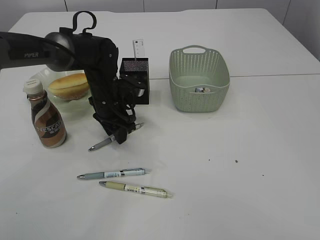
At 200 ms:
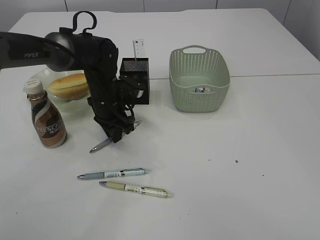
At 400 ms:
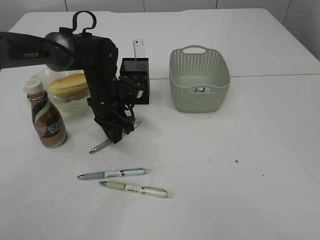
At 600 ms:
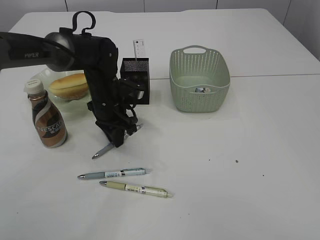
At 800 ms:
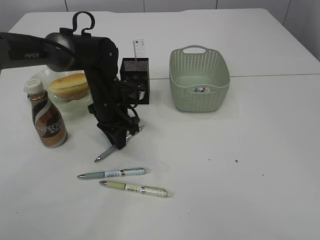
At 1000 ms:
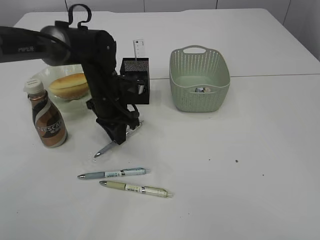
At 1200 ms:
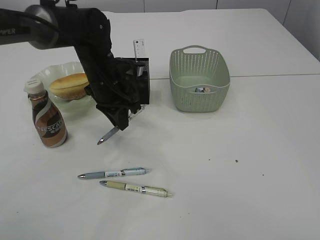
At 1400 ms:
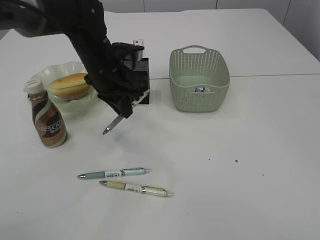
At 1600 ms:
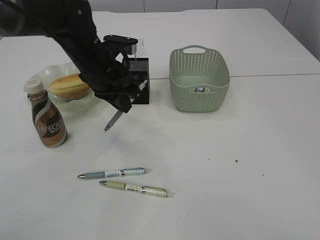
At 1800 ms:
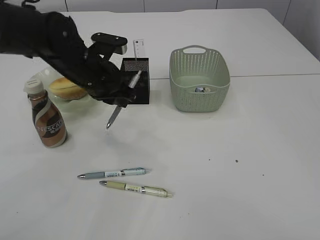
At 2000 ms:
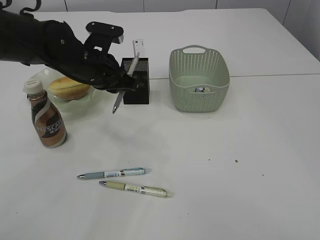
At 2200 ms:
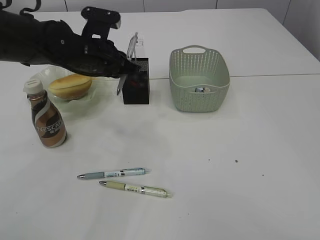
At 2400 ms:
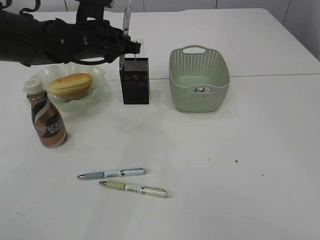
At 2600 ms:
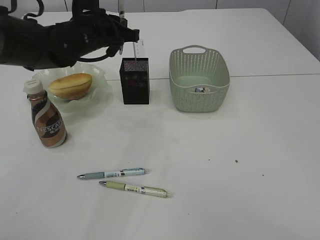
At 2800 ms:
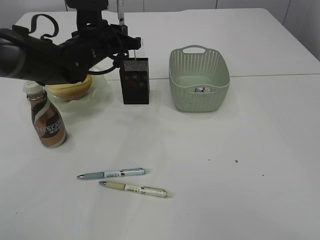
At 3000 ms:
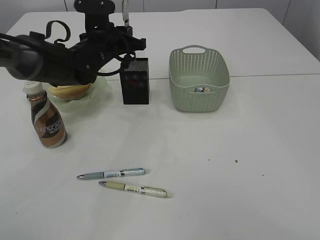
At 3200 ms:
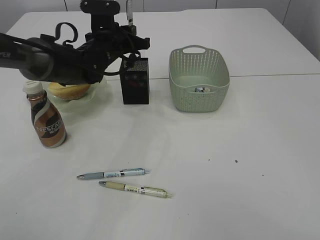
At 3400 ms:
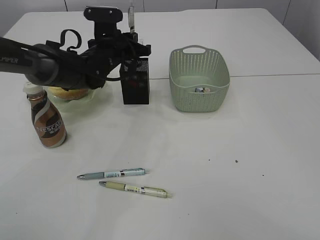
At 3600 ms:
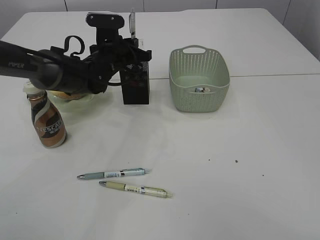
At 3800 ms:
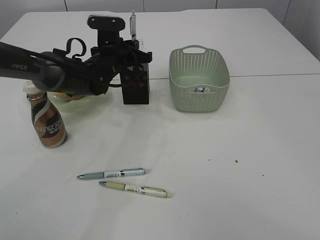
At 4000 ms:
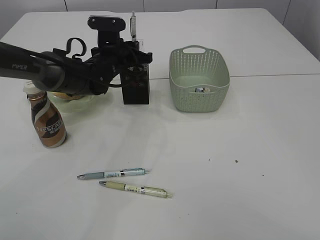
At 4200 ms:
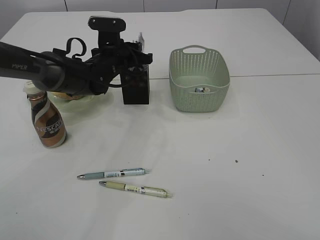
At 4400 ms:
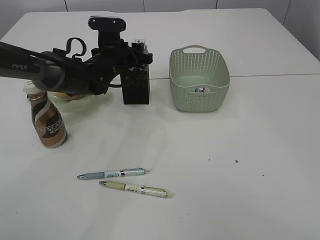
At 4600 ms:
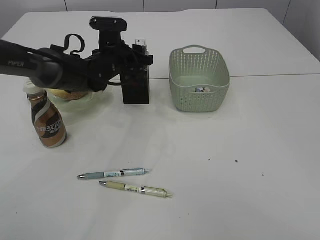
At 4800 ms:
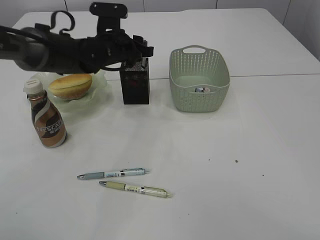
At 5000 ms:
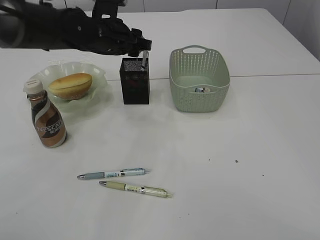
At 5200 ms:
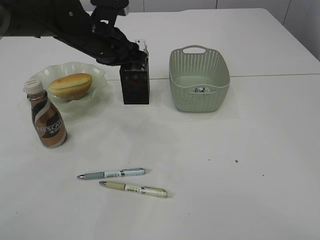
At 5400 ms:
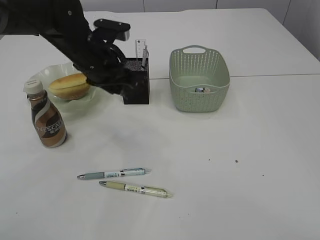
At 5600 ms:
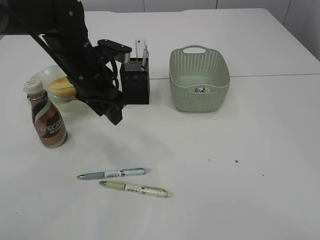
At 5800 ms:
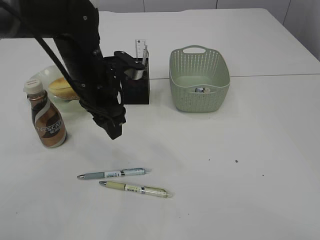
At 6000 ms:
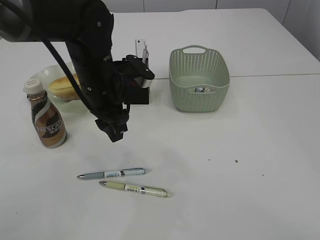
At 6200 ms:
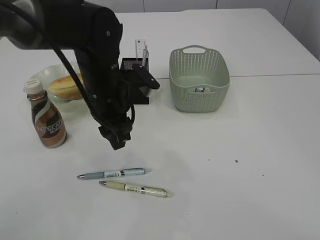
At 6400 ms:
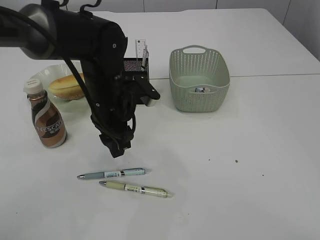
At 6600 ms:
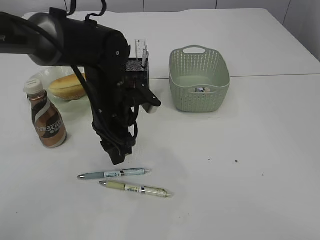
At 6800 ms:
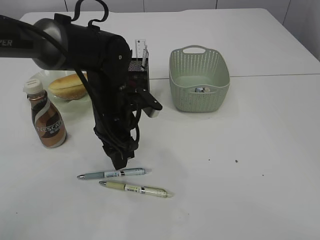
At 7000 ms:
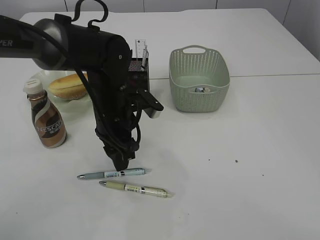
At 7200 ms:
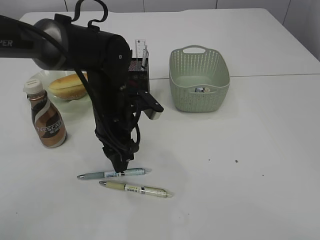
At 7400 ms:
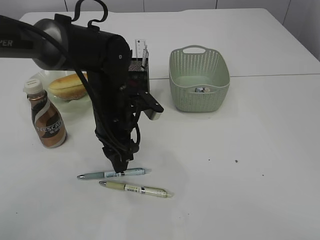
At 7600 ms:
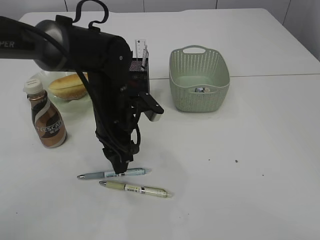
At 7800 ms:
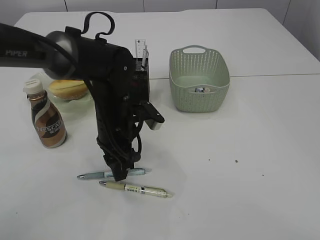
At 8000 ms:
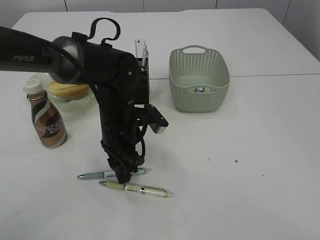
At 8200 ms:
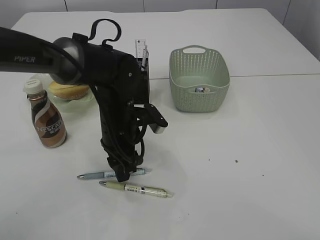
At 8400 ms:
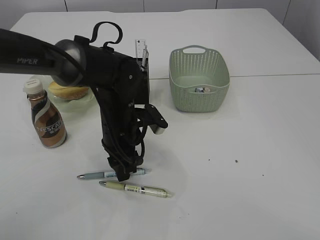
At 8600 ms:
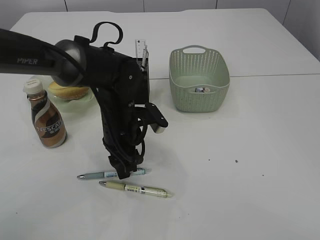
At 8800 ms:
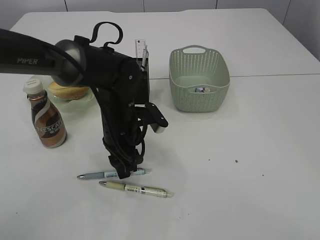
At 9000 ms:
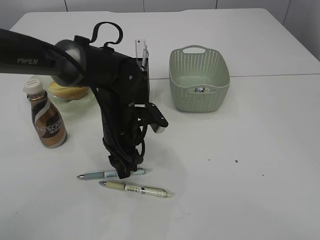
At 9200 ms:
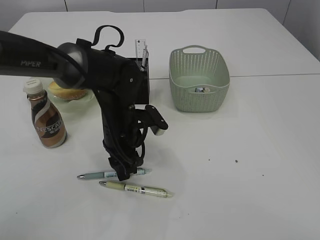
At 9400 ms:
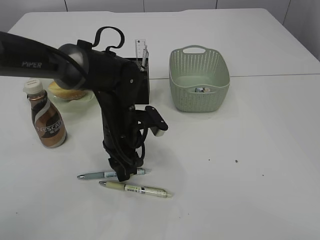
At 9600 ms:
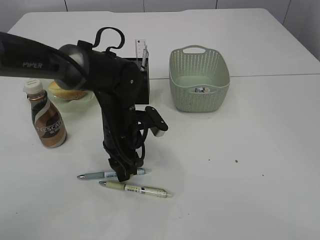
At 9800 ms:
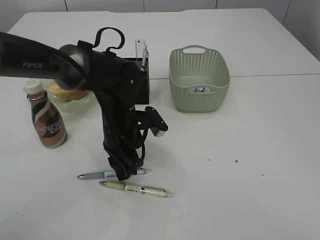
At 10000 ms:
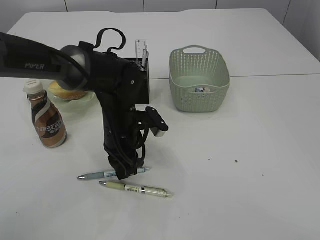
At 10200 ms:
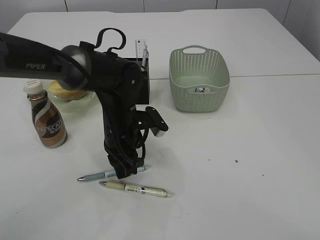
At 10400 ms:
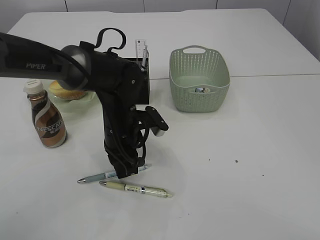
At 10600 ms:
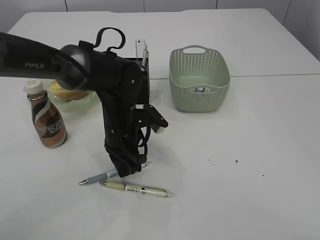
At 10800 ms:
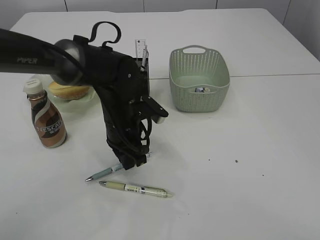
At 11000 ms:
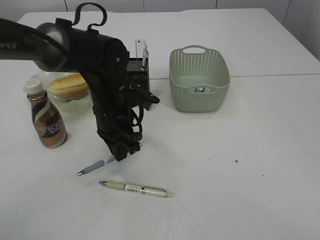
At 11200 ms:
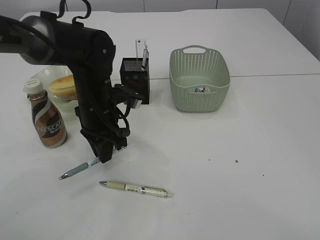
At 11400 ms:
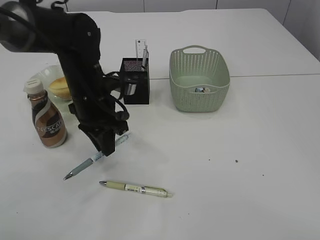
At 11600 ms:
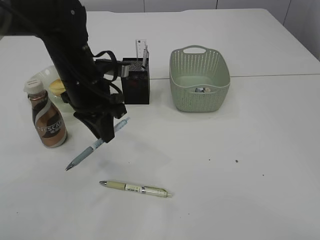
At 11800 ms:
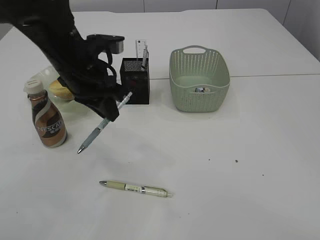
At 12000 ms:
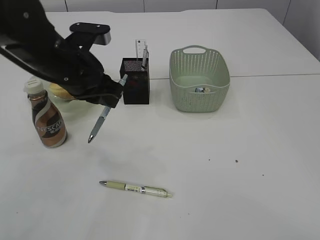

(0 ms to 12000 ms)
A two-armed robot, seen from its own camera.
Step, 1400 ms - 5000 ms: Place the pen into the pen holder.
Step, 5200 ms - 11200 ms: Pick up the pen with left arm.
0 ms - 1600 ms: The left gripper shifts roughly 10 cm upward, and closes up.
1600 ms - 3000 ms: The left gripper heads forward, covering roughly 5 cm.
3000 ms - 4400 ms: The left gripper opens.
4400 ms - 6000 ms: The left gripper goes roughly 15 cm backward.
6000 ms - 7600 ms: The left gripper is displaced downward by about 5 cm.
7600 ms - 9000 ms: The grippers stay close to where they were, moving slightly.
9000 ms - 10400 ms: The left gripper closes.
10400 ms - 12000 ms: The left gripper shifts approximately 15 cm upward and to the left.

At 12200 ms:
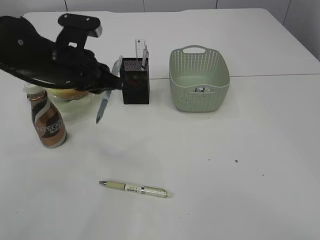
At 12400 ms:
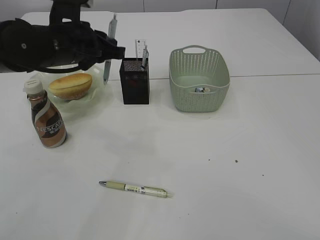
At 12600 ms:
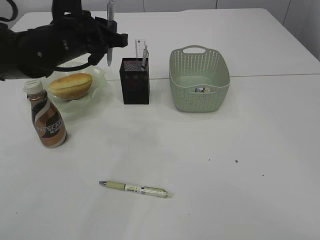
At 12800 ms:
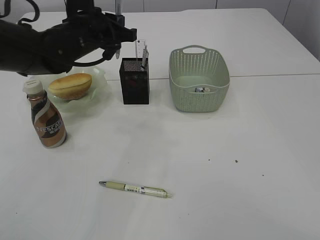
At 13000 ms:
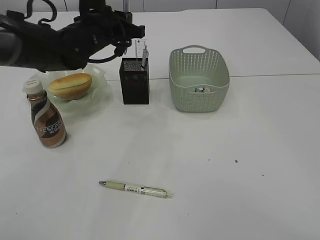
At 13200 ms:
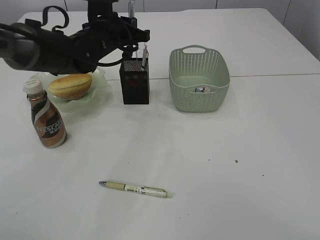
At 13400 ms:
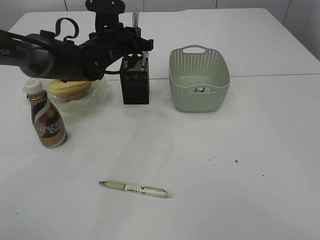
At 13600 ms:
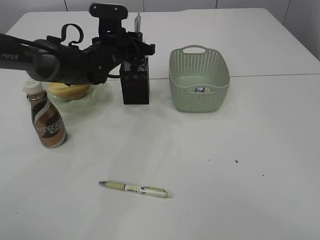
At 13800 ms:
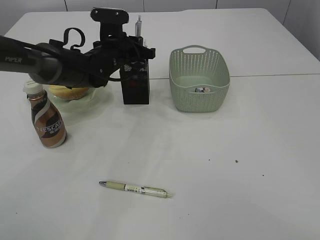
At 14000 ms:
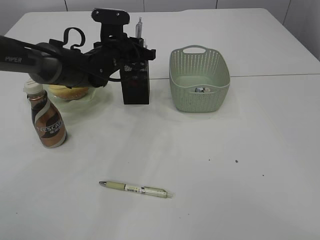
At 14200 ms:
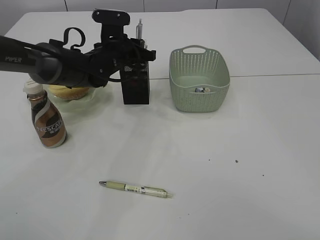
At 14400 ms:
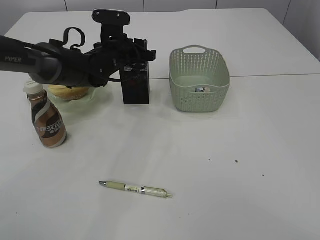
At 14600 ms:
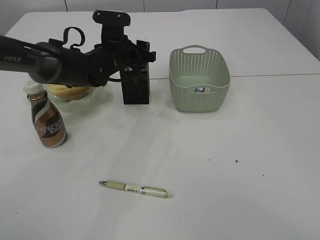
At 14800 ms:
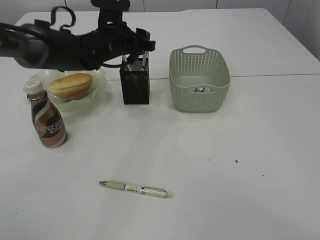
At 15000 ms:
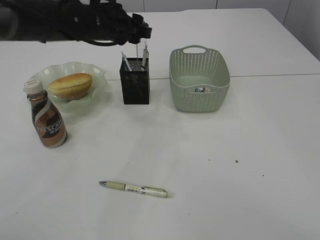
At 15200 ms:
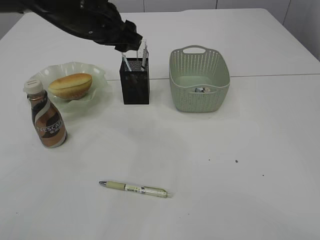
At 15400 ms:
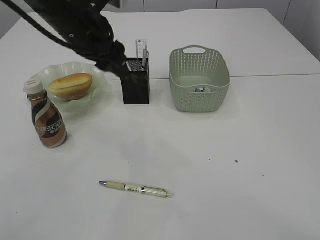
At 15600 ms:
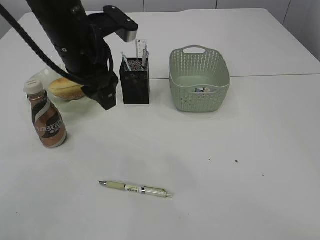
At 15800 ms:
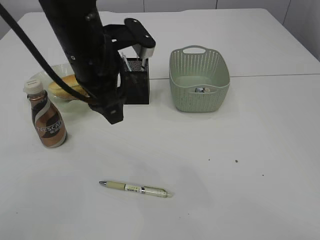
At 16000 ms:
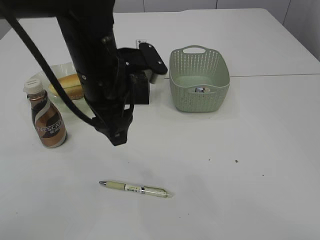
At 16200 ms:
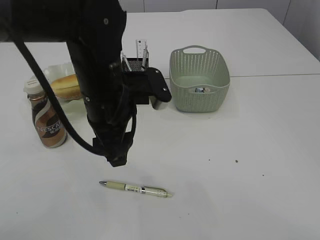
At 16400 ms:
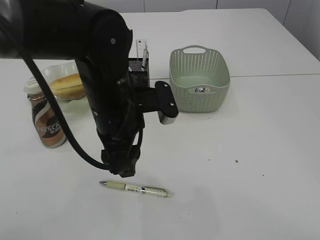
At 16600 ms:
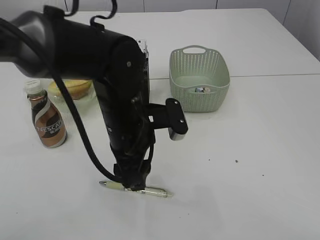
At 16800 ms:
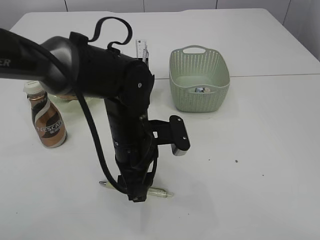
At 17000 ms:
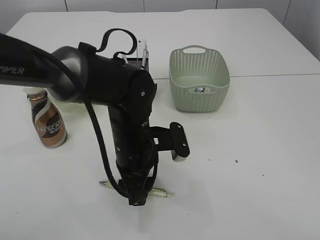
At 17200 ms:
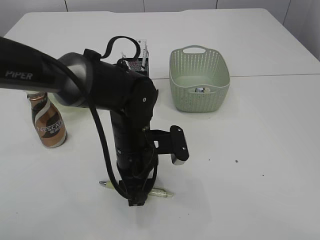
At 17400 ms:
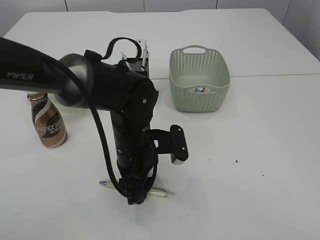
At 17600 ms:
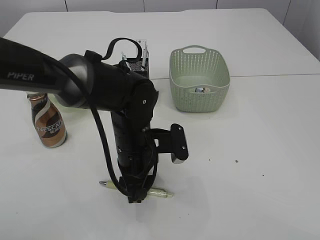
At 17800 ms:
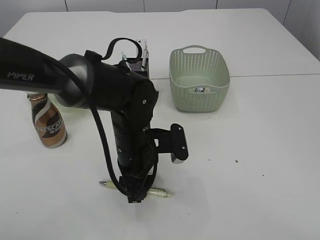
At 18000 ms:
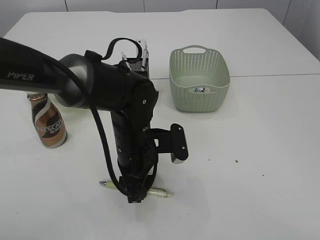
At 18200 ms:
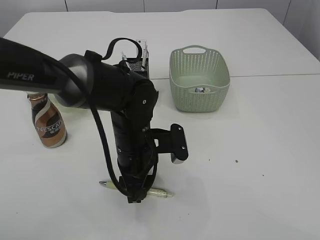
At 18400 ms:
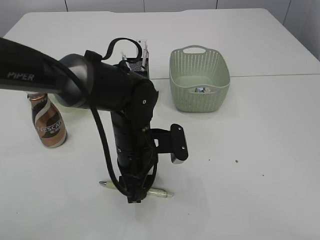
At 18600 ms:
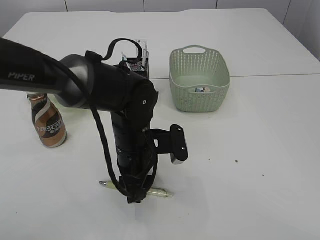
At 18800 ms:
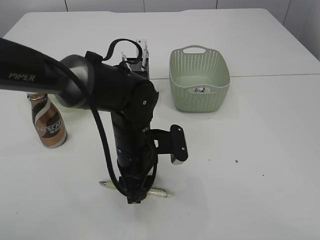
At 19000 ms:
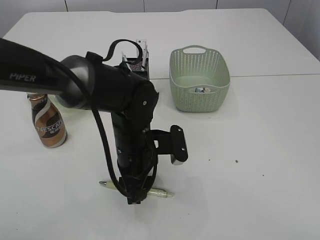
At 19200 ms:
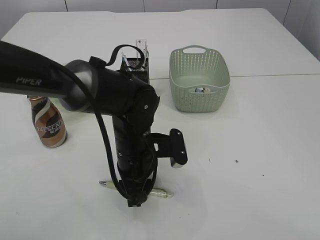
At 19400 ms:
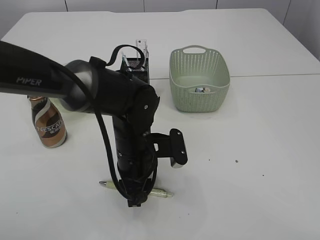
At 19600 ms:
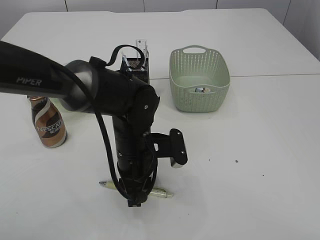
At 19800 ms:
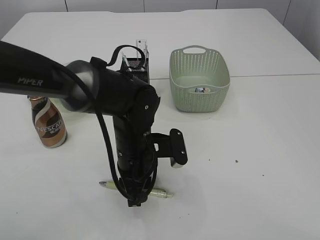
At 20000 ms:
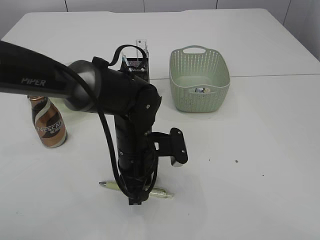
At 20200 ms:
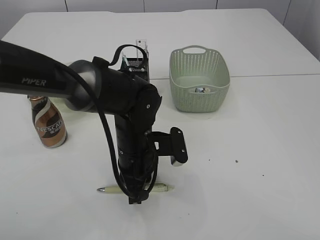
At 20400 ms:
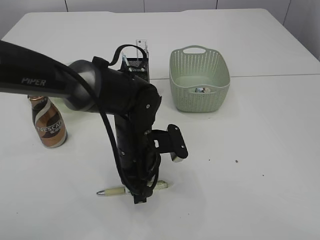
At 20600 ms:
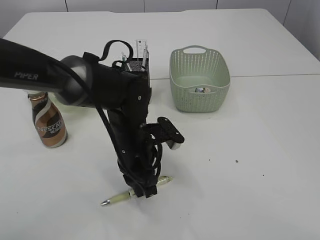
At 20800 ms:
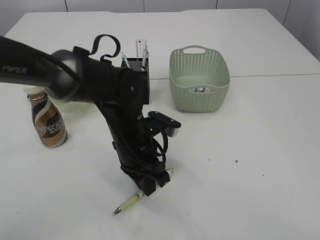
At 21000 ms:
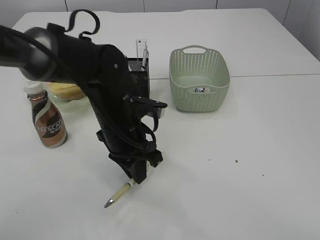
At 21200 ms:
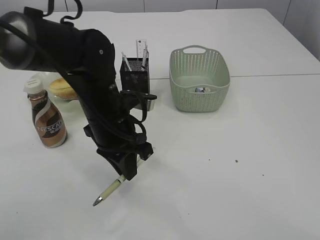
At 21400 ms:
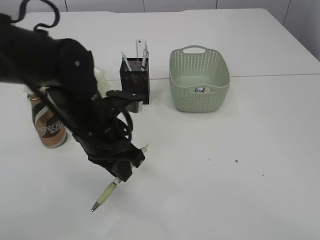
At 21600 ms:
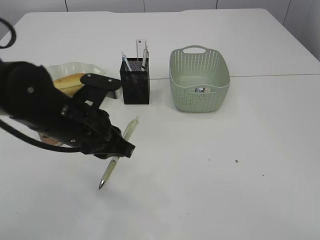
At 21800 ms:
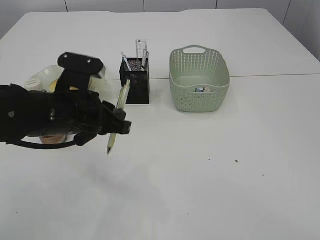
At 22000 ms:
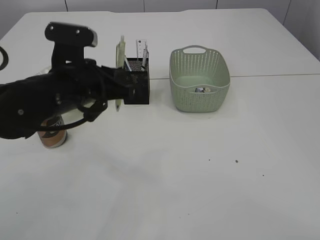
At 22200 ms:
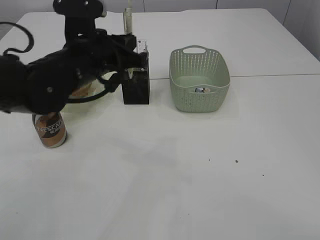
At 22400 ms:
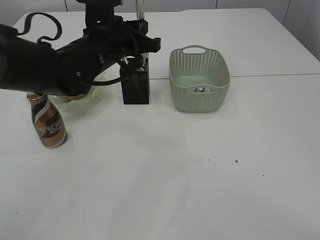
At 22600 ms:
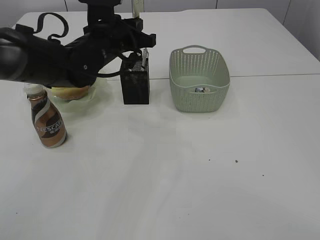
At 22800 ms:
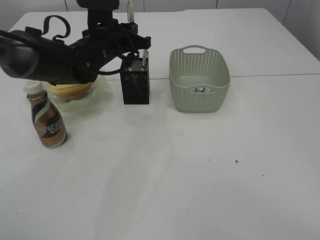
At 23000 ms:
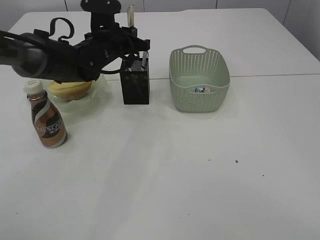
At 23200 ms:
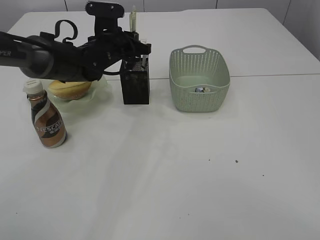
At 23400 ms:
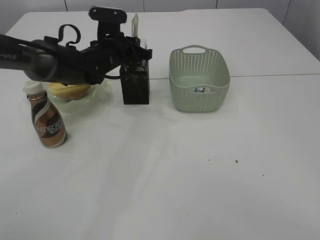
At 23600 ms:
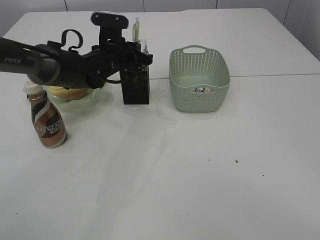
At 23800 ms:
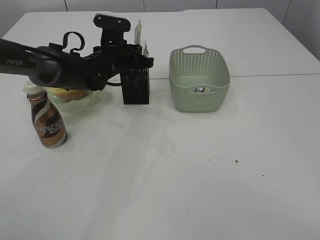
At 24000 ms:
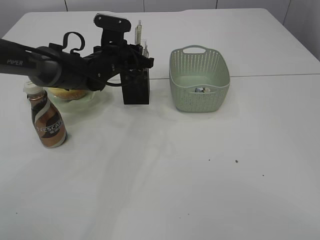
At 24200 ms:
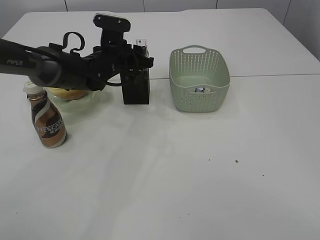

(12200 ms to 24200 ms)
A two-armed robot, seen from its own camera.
Step, 12200 ms - 15000 ms: Place the pen into the pen holder.
Step, 15200 ms - 21200 ms: Pick up the pen with left arm.
12200 ms - 13800 ms: The left gripper heads forward and downward, covering approximately 15 cm.
13800 ms - 15200 ms: The left gripper is displaced upward and backward by about 10 cm, and opens up.
15200 ms - 16600 ms: The left gripper goes roughly 20 cm backward, downward and to the right.
16600 ms - 18200 ms: The left gripper goes approximately 5 cm downward.
18200 ms - 19800 ms: The two grippers keep their place.
19800 ms - 21200 ms: The left gripper is displaced upward by roughly 5 cm, and closes up.
21200 ms - 22600 ms: The left gripper goes some 10 cm forward and upward.
22600 ms - 24200 ms: The left gripper moves downward and forward, about 10 cm, and opens.
